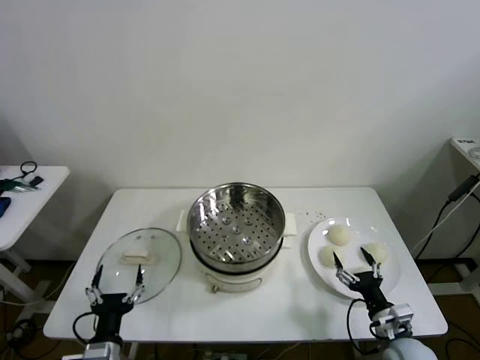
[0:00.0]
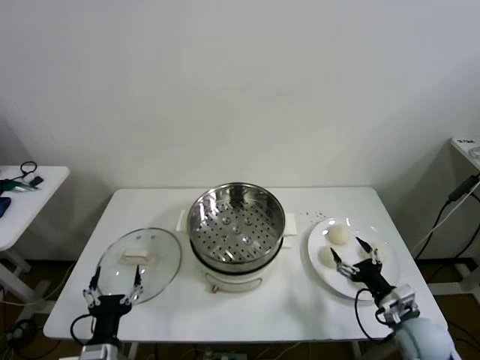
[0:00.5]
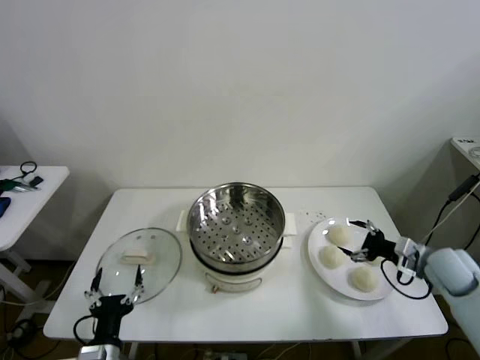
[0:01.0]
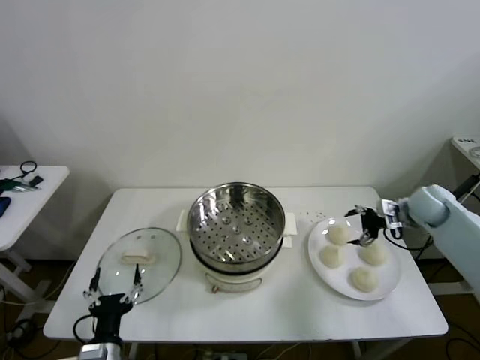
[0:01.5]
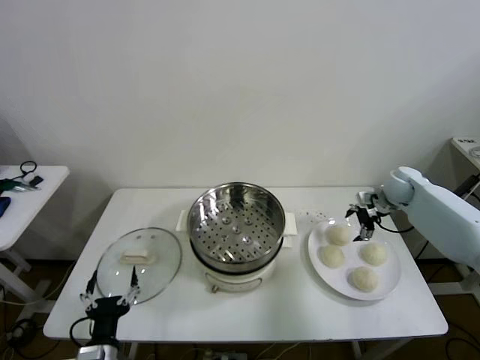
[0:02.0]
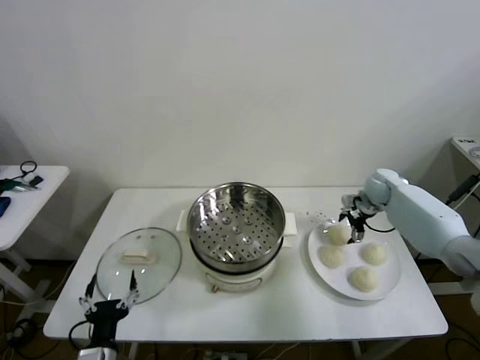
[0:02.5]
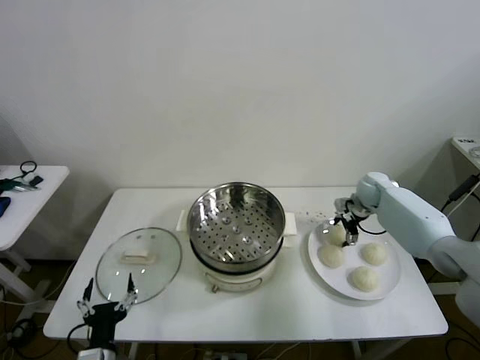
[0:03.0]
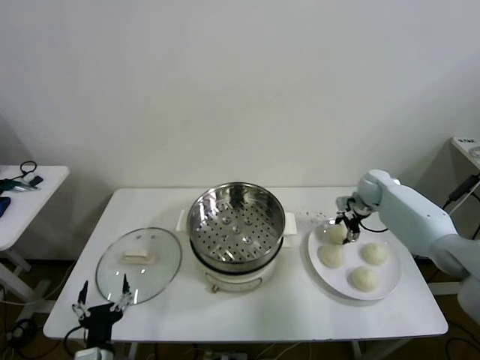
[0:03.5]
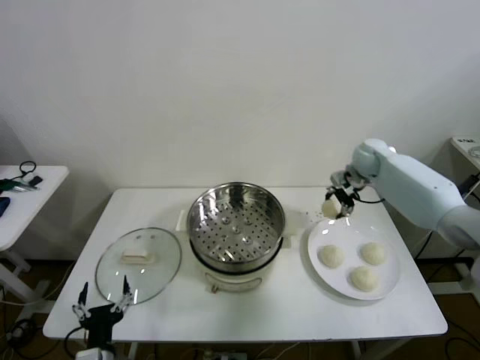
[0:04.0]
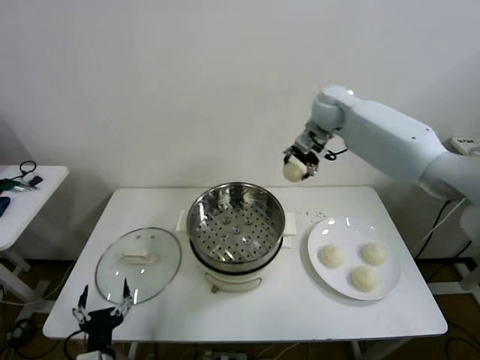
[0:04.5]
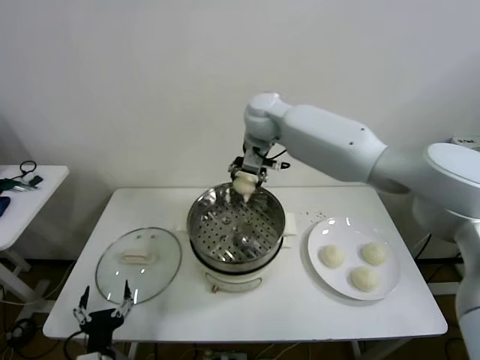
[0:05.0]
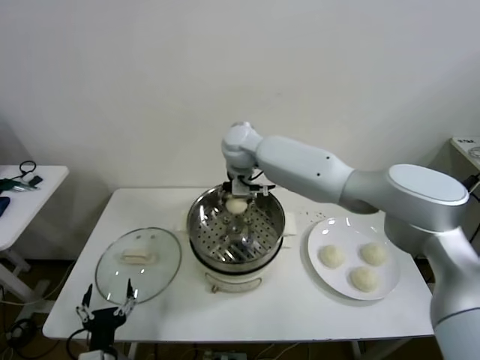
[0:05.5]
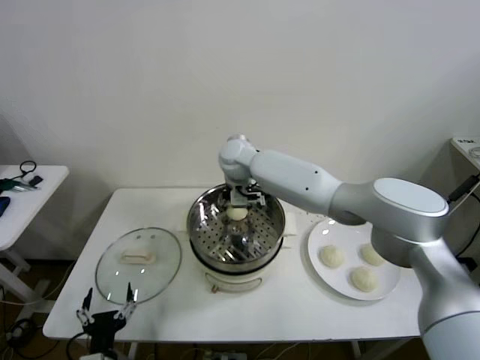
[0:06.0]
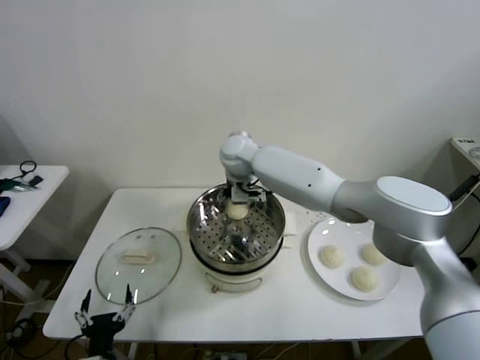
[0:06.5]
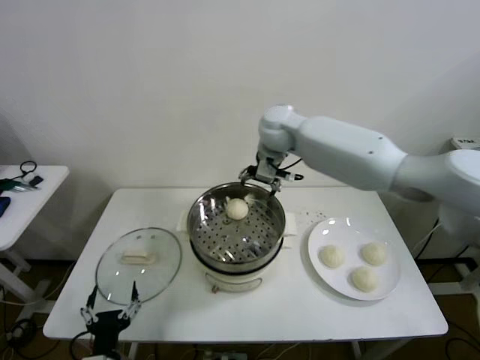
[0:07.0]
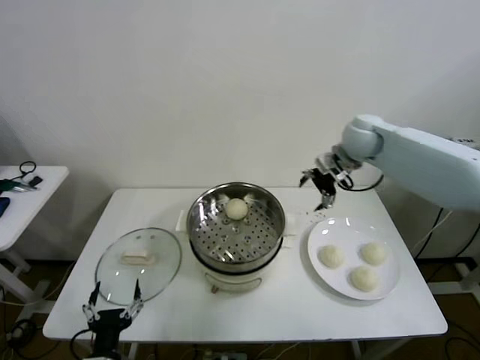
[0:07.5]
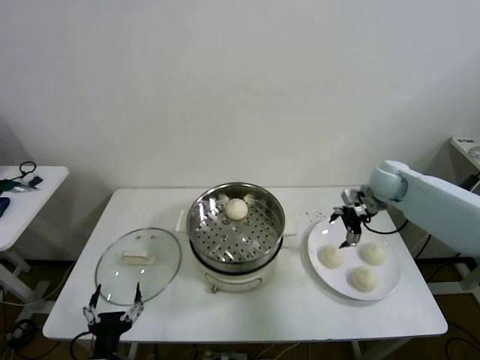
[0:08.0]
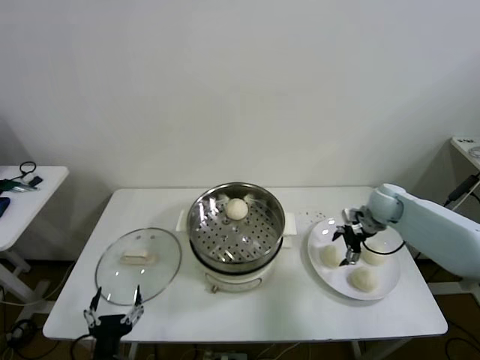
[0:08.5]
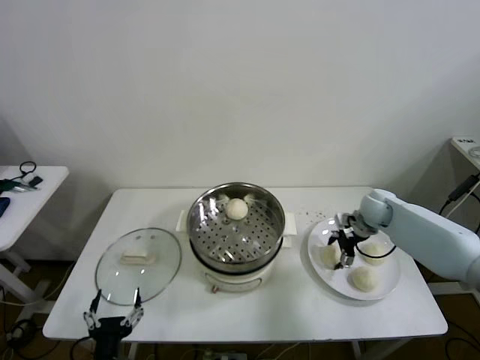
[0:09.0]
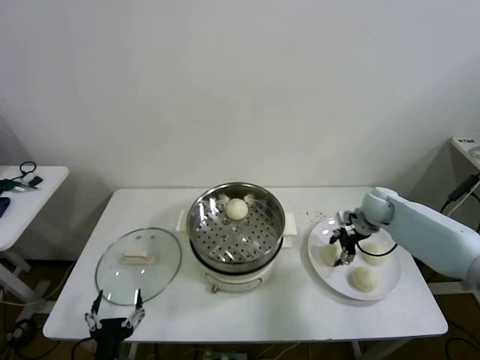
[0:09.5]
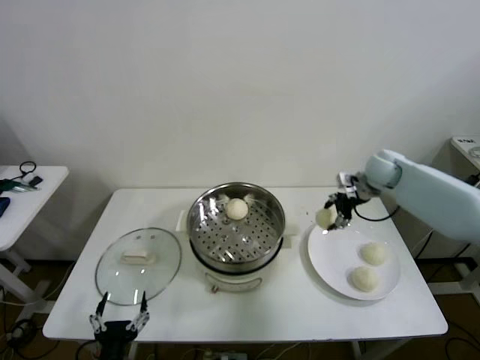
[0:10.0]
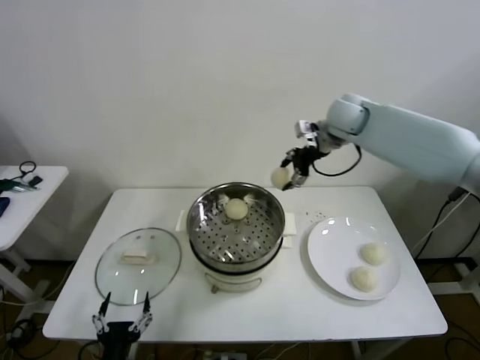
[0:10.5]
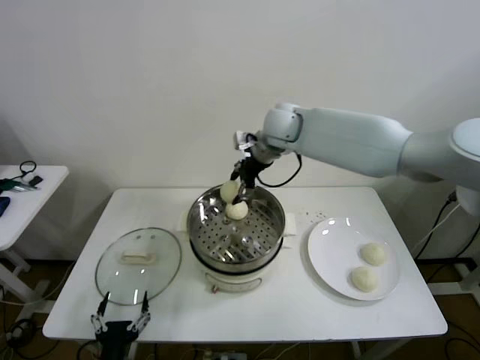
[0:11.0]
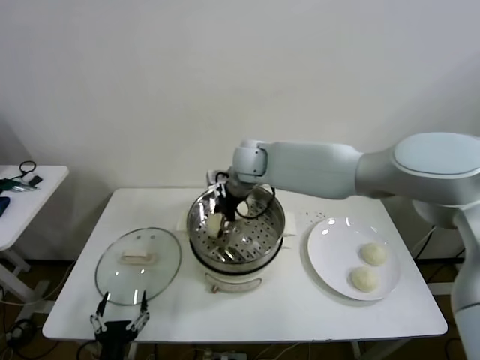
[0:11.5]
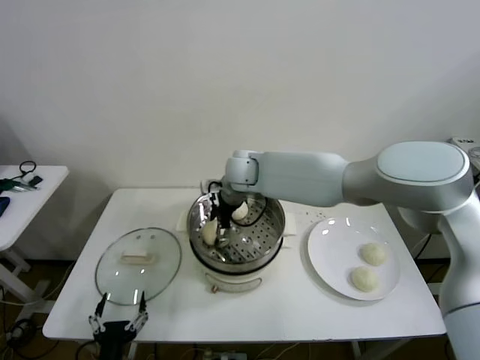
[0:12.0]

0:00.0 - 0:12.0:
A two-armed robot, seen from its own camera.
Step, 0:00.0 - 0:03.0: Grasp the baozi in the plate with right gripper.
Step, 0:03.5 - 0:06.0: Place the baozi on the steamer with right gripper.
Step, 0:06.5 - 0:09.0: Grasp the baozi in the plate with right gripper.
Step, 0:09.5 - 0:12.0: Place the baozi on the steamer with right gripper.
0:02.0 - 0:04.0: The right gripper is displaced upward, to the left and forward by some 15 cm, and closes its fingers.
0:04.0 - 0:06.0: The right gripper goes roughly 35 cm to the left, and opens its fingers.
0:06.0 - 0:08.0: The right gripper travels to the right by some 40 cm, and opens.
0:08.0 - 0:10.0: The right gripper travels upward by about 5 cm, and closes its fingers.
0:10.0 - 0:12.0: The right gripper moves to the left, about 35 cm, and opens up.

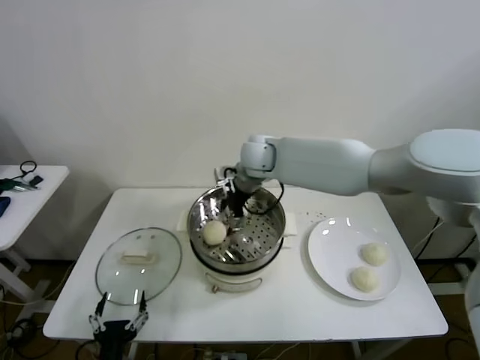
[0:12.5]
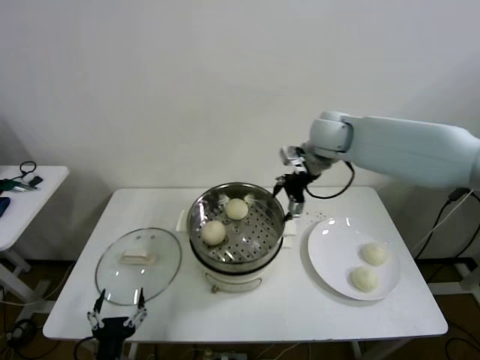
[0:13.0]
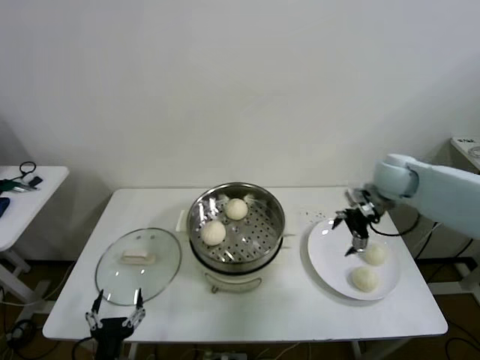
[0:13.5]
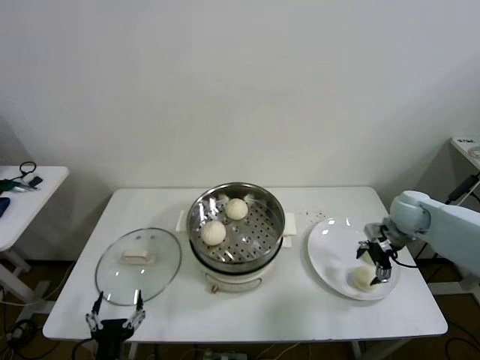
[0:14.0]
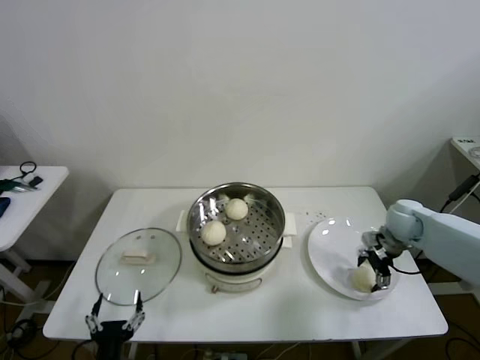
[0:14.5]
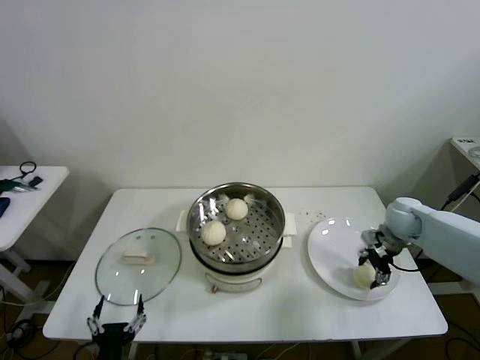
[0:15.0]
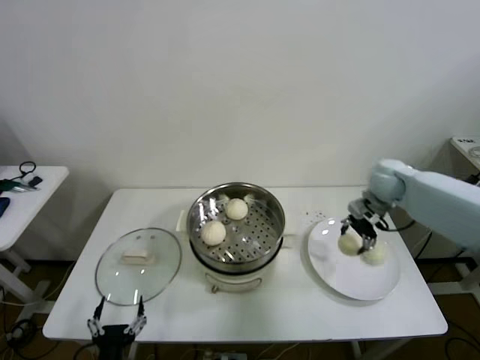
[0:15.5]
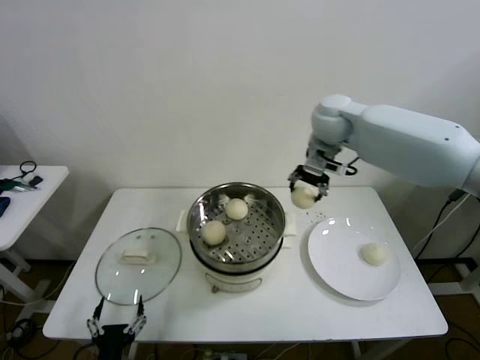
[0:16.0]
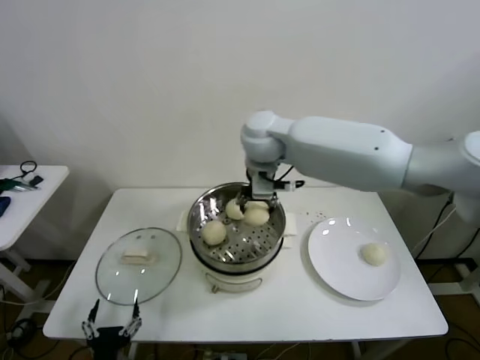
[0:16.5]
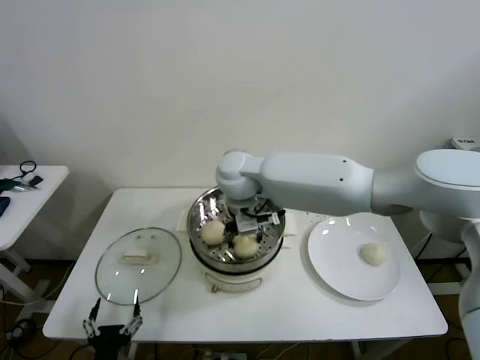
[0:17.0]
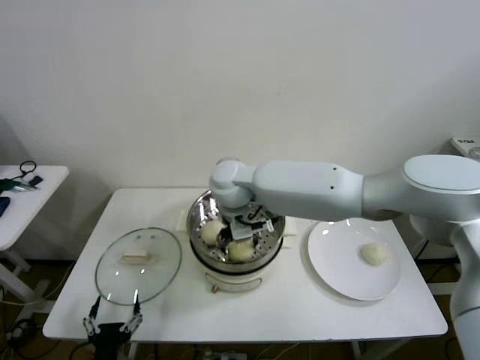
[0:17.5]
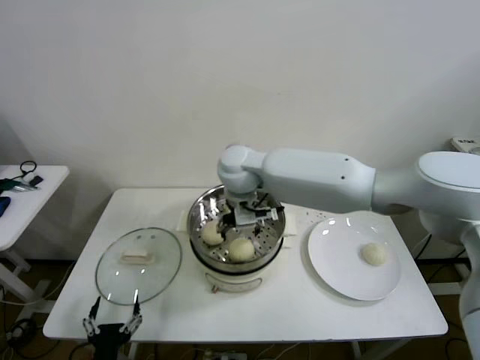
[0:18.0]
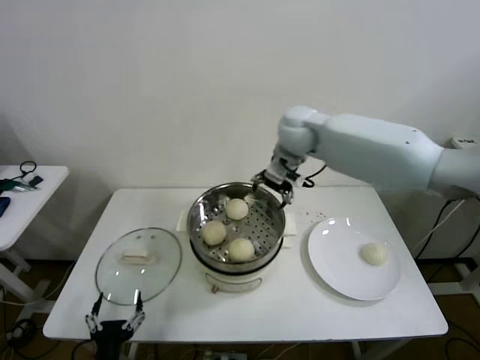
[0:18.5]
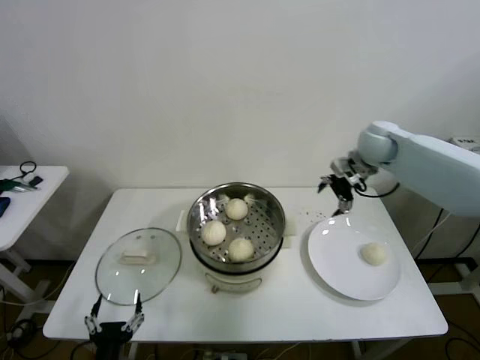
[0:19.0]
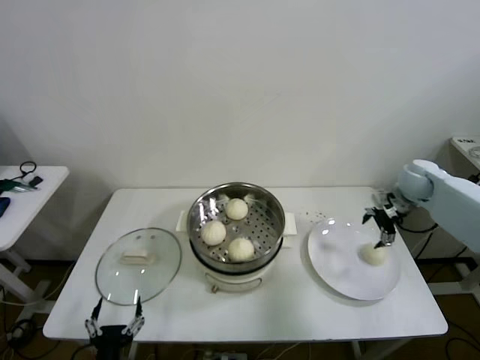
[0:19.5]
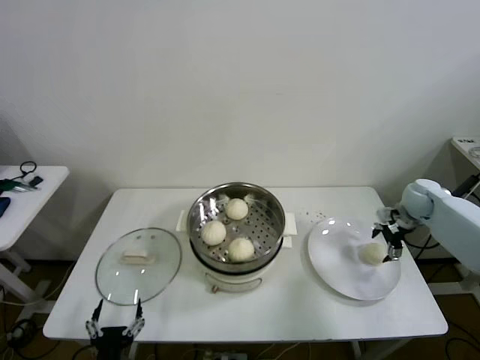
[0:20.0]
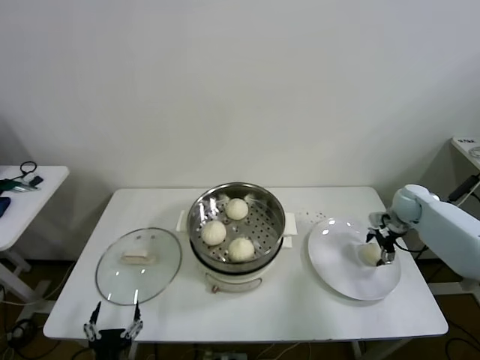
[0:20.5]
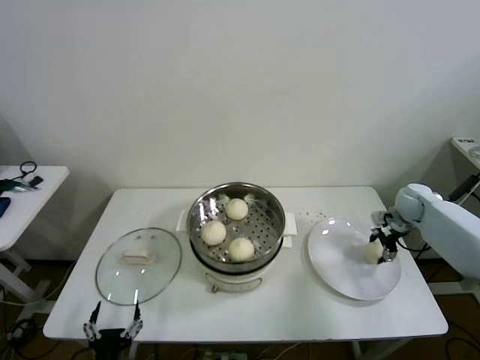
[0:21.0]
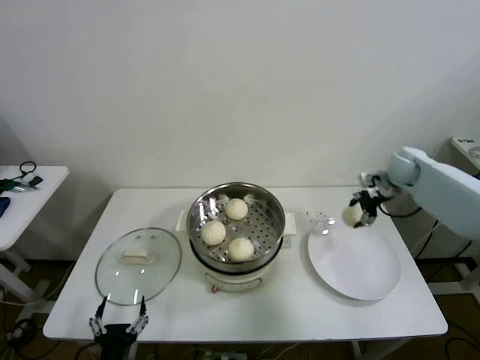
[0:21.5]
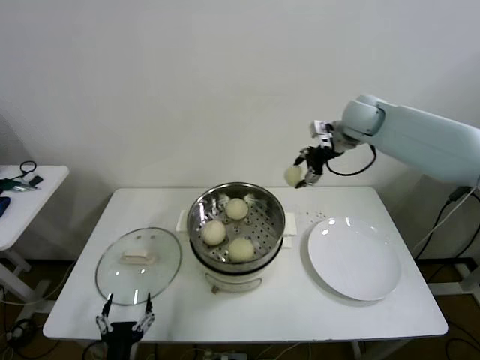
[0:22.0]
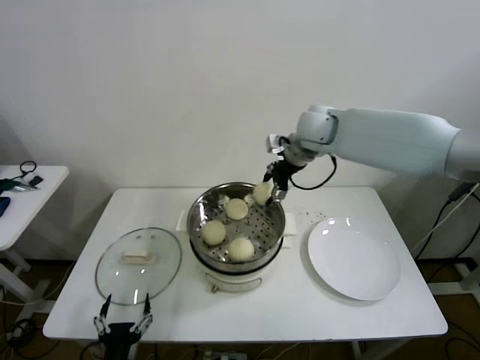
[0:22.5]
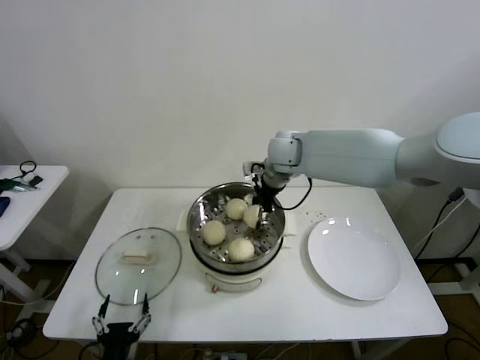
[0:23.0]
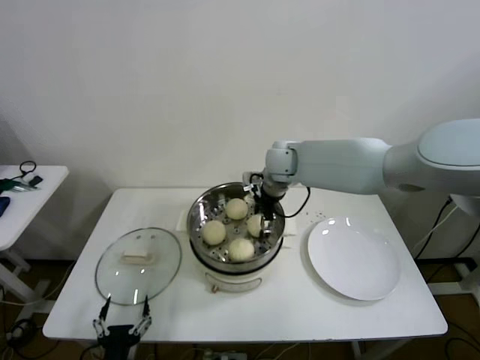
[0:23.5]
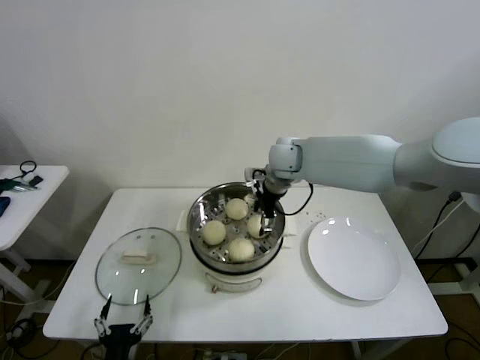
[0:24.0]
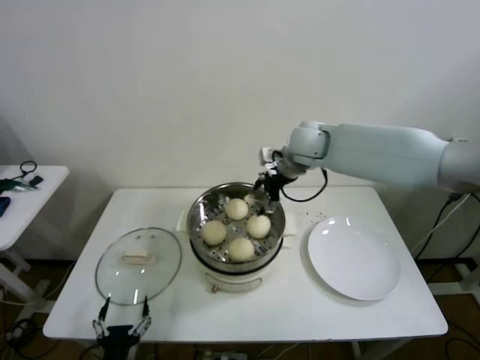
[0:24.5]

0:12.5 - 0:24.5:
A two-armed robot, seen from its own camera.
Step, 0:12.5 - 0:14.5: Grasp the baozi in the plate with right gripper.
Step, 0:15.0 - 0:17.5: Place the baozi on the steamer with right gripper.
Step, 0:18.0 - 0:20.5: Grasp the baozi in the plate with right gripper.
Step, 0:21.0 - 0:23.5: Place the baozi on the steamer with right gripper.
0:12.5 - 0:14.5: The right gripper goes about 40 cm to the right and downward.
0:14.5 - 0:16.5: The right gripper shifts some 40 cm to the left and upward, and closes up.
0:16.5 - 0:18.5: The right gripper heads to the right, covering some 10 cm, and opens its fingers.
0:18.5 - 0:20.5: The right gripper shifts roughly 40 cm to the right and downward.
0:20.5 - 0:22.5: The right gripper shifts some 35 cm to the left and upward, and closes up.
0:22.5 - 0:24.5: The right gripper opens up.

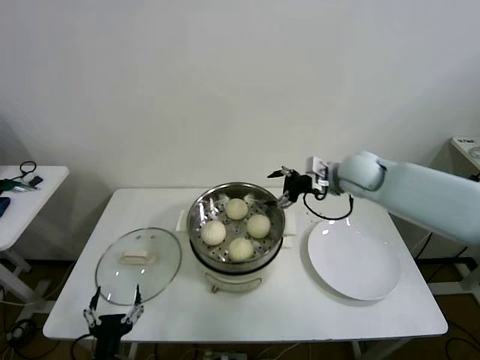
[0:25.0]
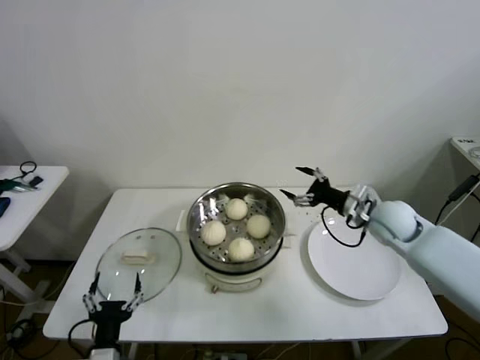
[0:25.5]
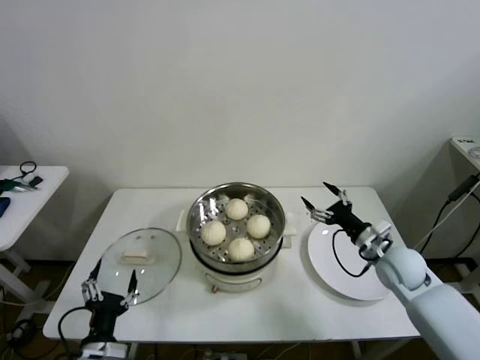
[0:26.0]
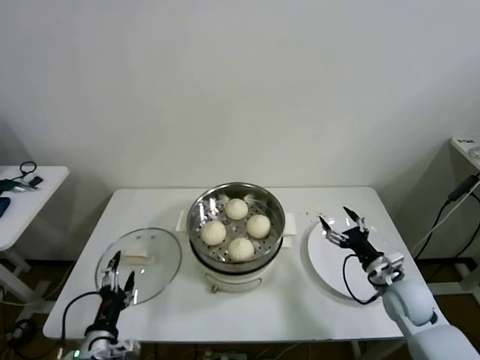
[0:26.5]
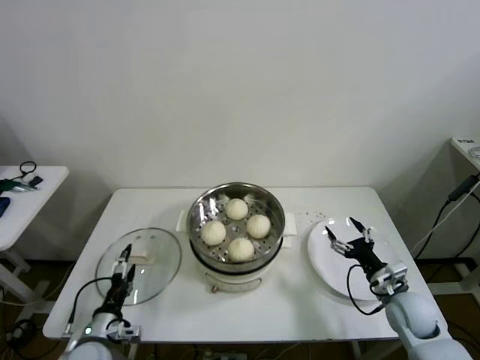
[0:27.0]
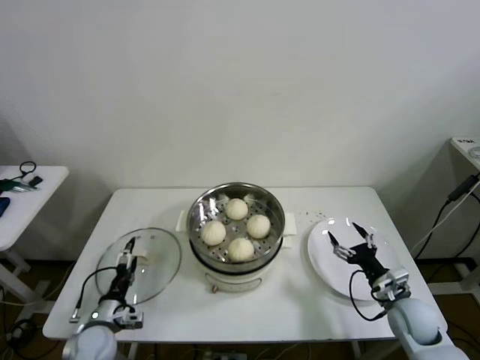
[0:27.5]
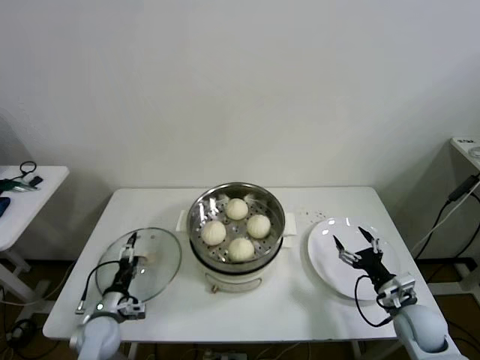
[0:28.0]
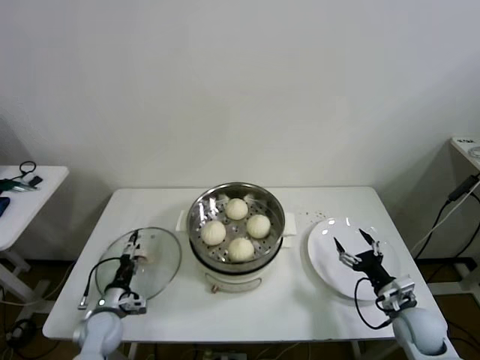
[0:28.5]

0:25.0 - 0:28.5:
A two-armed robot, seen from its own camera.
0:25.0 - 0:27.0: The left gripper travels forward and to the left by approximately 10 cm, while the right gripper goes roughly 35 cm downward, backward and to the right.
0:27.0 - 0:28.5: The left gripper travels forward and downward by roughly 10 cm.
